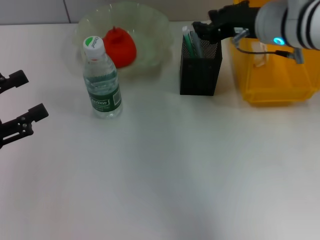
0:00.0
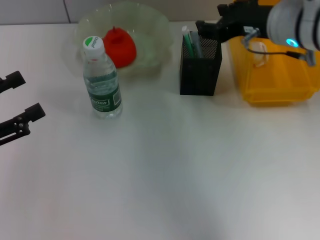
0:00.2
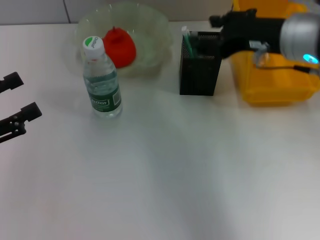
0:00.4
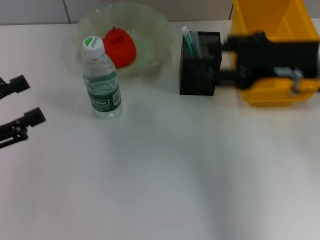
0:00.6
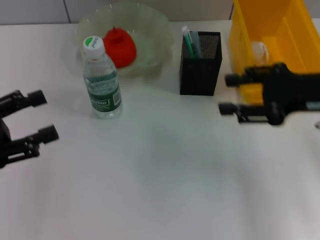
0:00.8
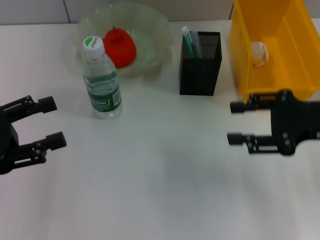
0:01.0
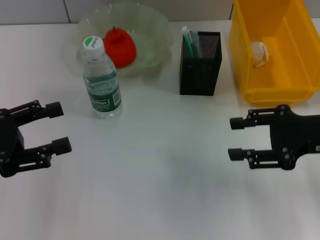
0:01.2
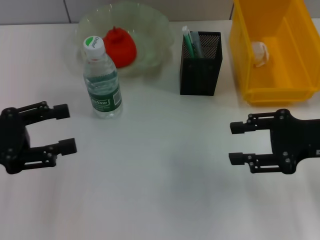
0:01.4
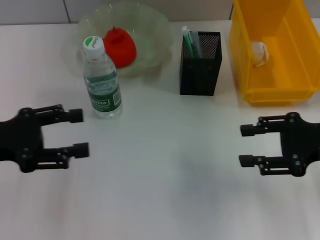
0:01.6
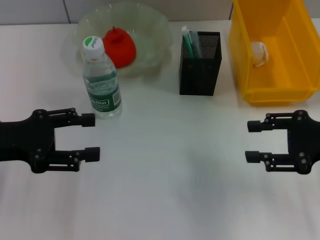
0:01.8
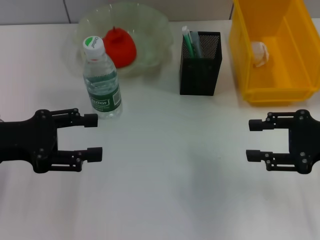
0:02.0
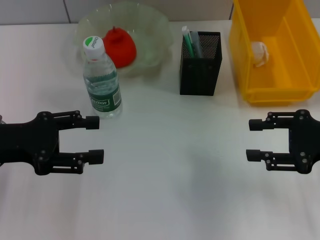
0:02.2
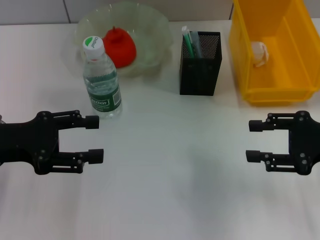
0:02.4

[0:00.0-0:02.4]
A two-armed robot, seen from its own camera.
0:00.0 to 0:01.2: The right gripper travels to the right, backward and downward by approximately 15 cm, and opens its fingers.
0:01.2 to 0:02.4: The grippers move only a little.
